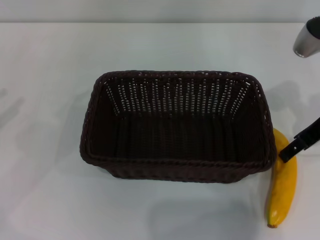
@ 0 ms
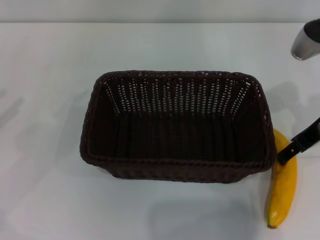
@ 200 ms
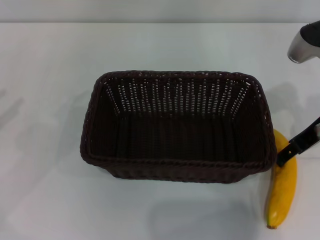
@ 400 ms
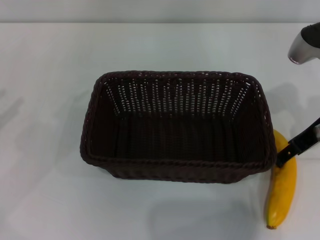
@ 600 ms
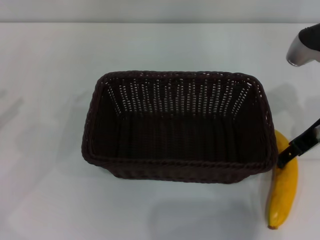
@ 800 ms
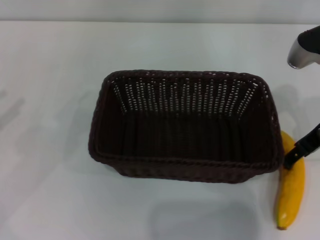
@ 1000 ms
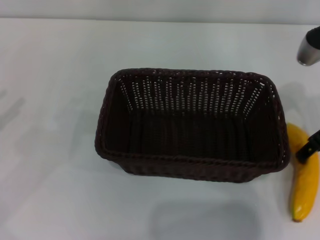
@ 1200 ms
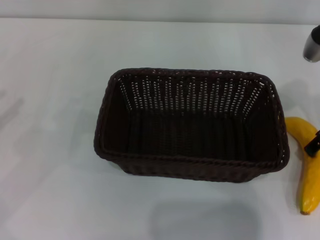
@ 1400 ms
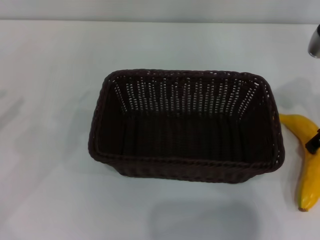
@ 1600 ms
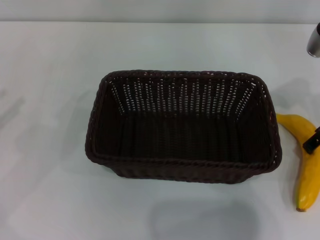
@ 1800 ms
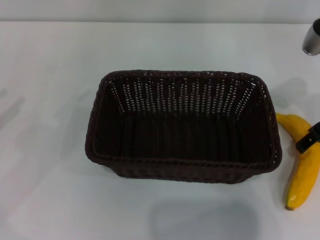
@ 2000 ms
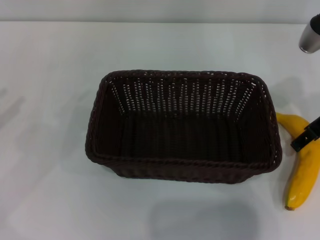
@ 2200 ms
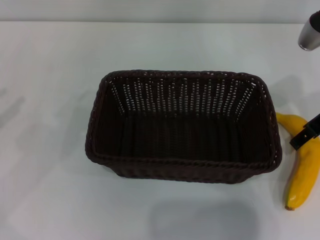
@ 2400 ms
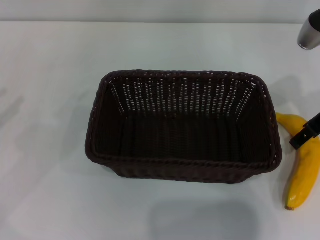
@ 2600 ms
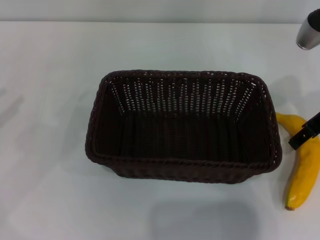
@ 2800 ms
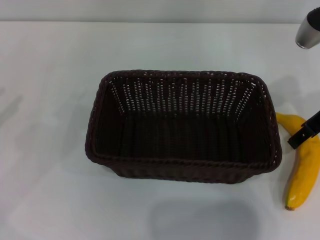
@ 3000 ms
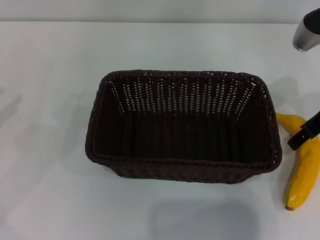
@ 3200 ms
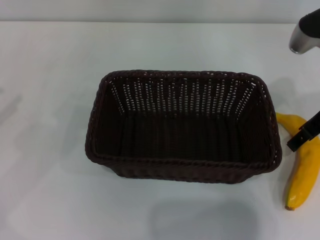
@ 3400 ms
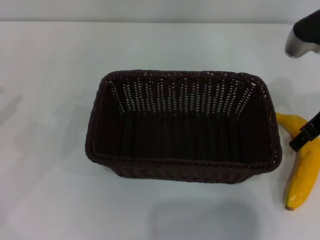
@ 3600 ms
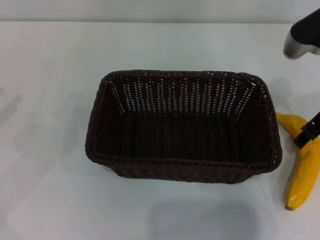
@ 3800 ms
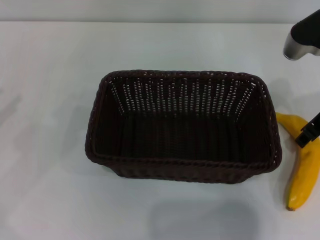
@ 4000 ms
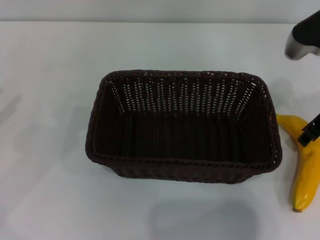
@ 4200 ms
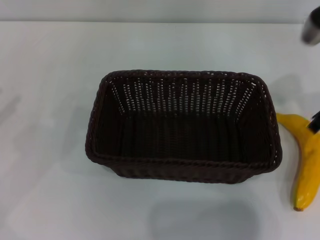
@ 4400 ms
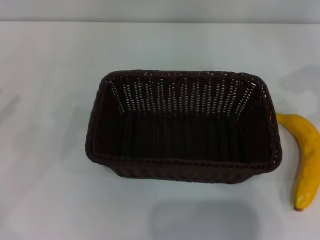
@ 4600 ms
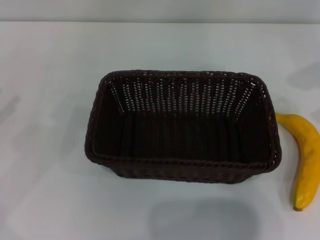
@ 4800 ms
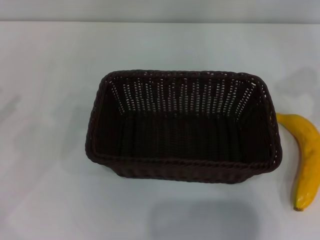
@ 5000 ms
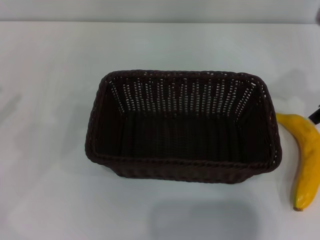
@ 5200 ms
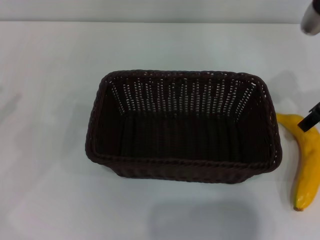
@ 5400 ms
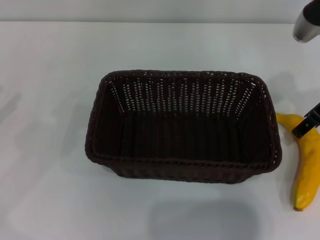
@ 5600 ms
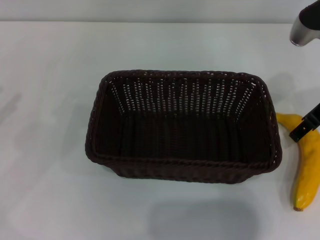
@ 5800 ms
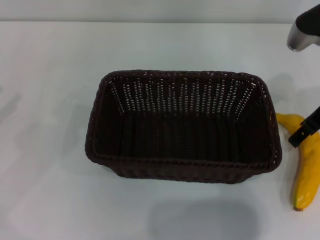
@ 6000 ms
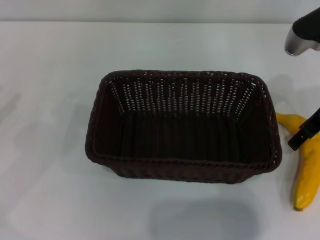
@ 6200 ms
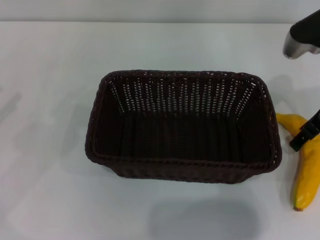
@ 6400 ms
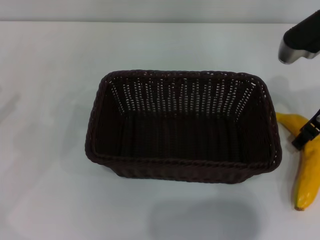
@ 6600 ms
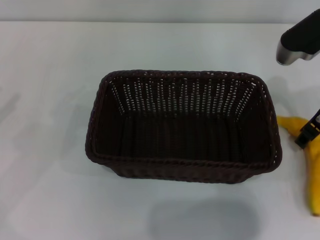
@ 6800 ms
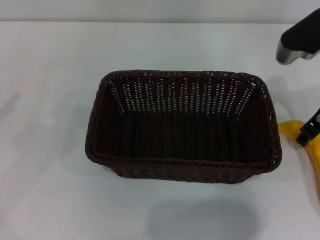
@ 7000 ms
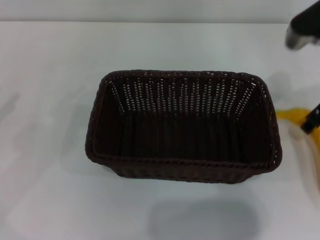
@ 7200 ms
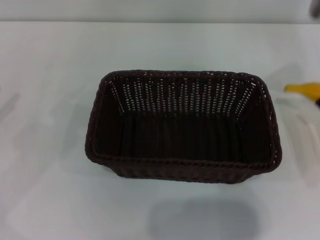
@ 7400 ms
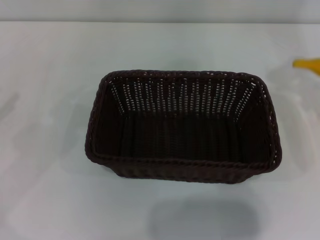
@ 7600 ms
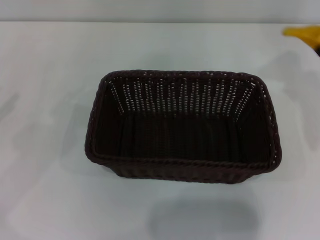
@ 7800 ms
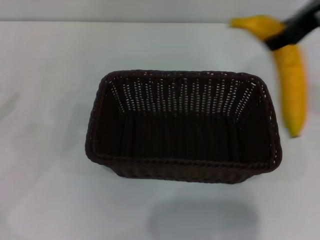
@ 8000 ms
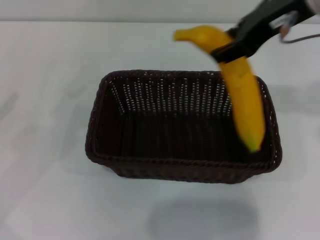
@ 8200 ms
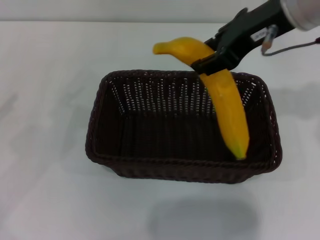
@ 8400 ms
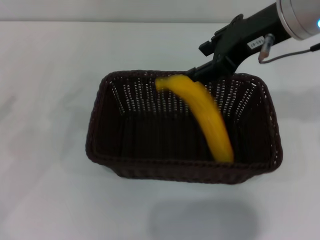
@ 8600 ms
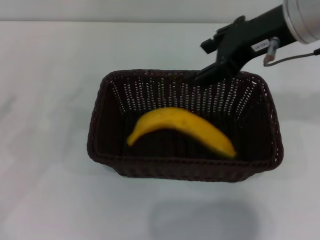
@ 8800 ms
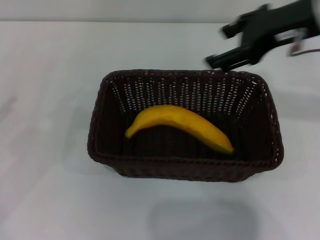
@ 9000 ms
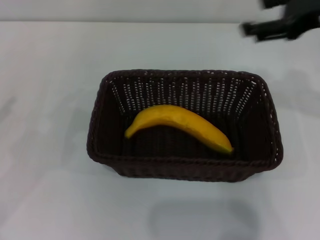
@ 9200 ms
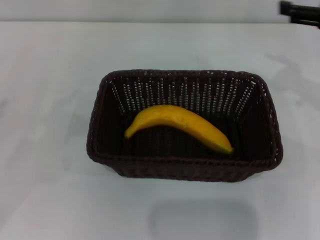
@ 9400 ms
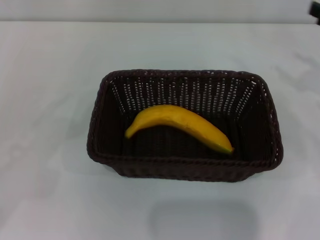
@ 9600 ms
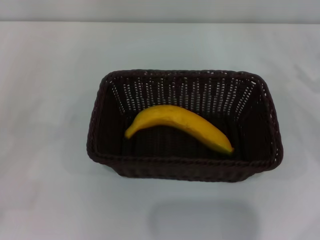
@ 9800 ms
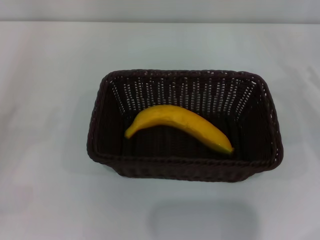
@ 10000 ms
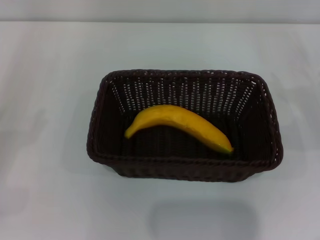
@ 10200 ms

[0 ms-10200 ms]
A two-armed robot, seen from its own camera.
Step, 0 ms to 7200 ms: Pick up the banana with the right gripper.
Step, 7600 ms to 8600 ms: Place the banana into the dark basket with the right gripper.
0 ms to 3000 ms: The grippers move only a little.
3000 ms to 4400 ms: The right gripper closes up.
4400 ms to 5800 ms: The right gripper opens up.
5800 ms to 7200 ms: The right gripper closes its fingers.
7200 ms to 8800 ms: The right gripper heads upward and to the left, covering approximately 10 cm.
8800 ms to 10200 ms: The left gripper moves downward and backward, some 10 cm. The right gripper is displaced to the right and downward by roughly 30 cm.
